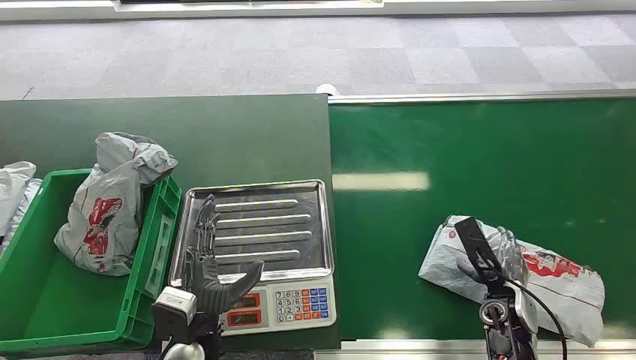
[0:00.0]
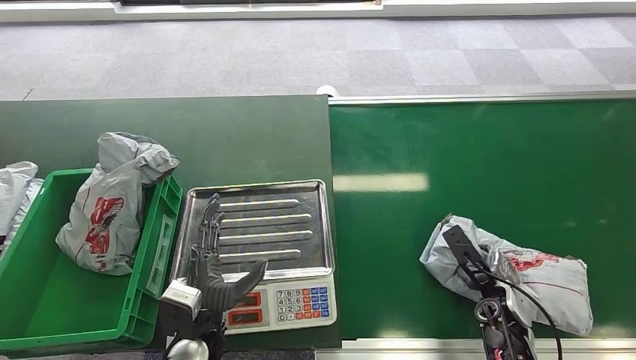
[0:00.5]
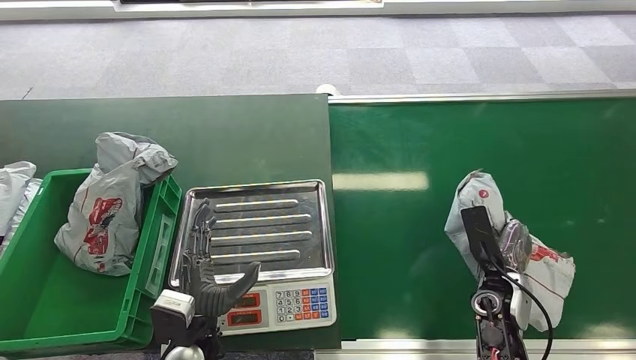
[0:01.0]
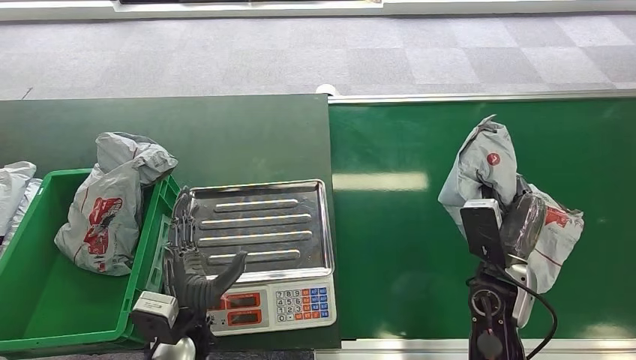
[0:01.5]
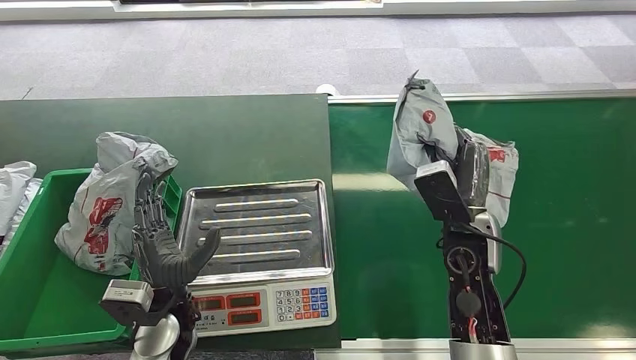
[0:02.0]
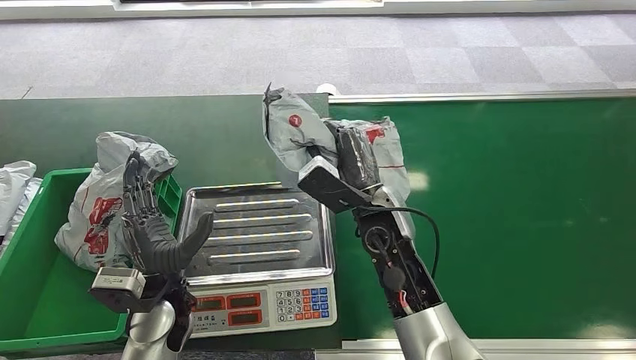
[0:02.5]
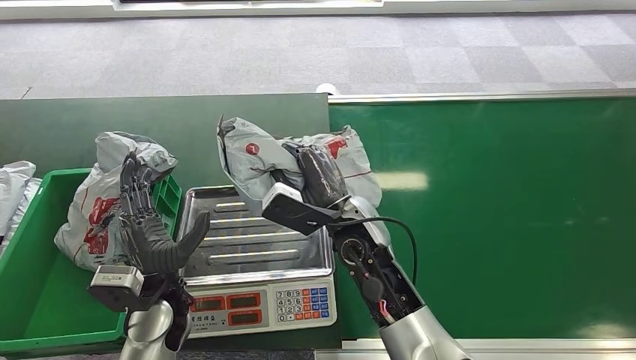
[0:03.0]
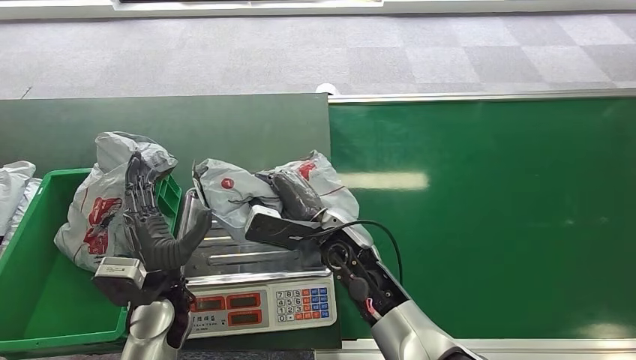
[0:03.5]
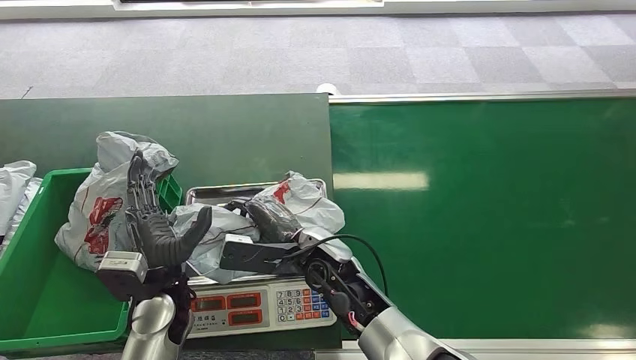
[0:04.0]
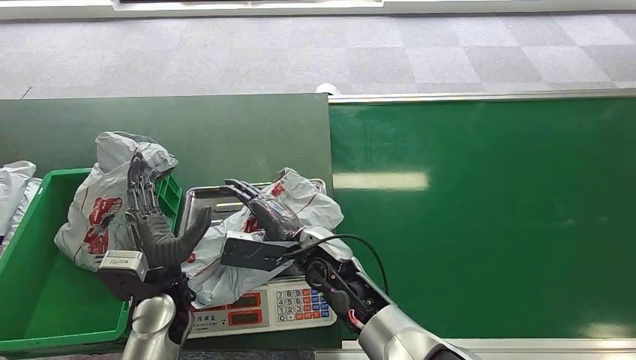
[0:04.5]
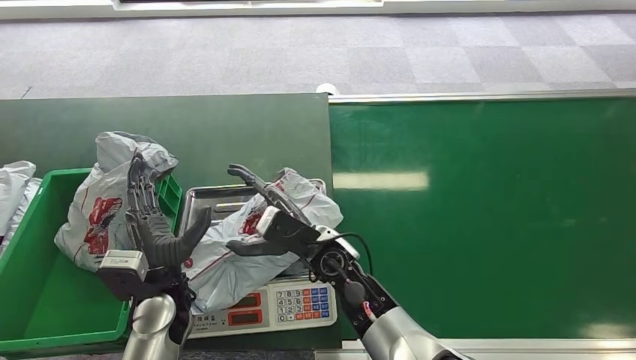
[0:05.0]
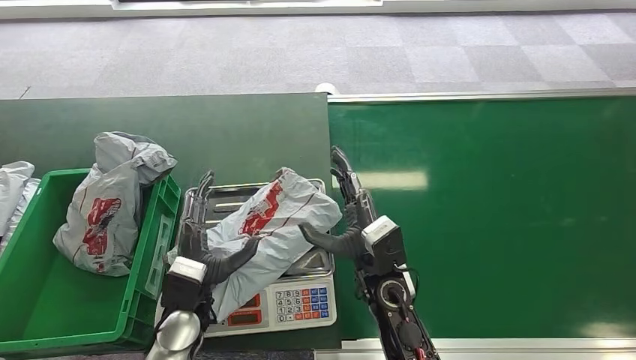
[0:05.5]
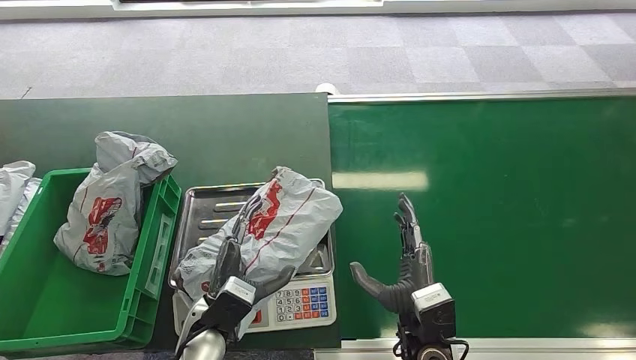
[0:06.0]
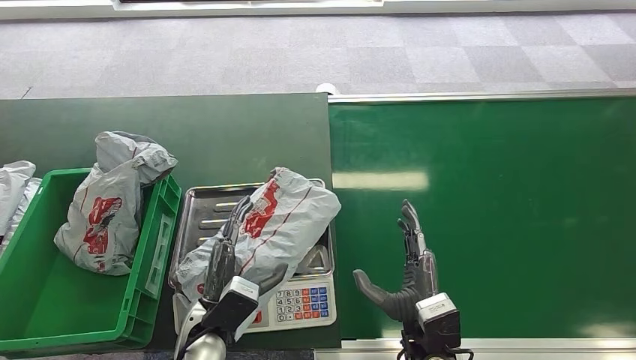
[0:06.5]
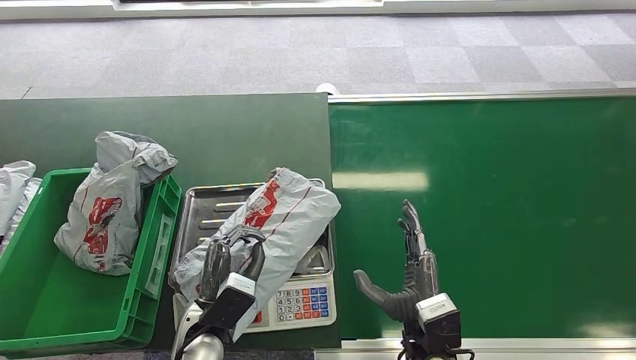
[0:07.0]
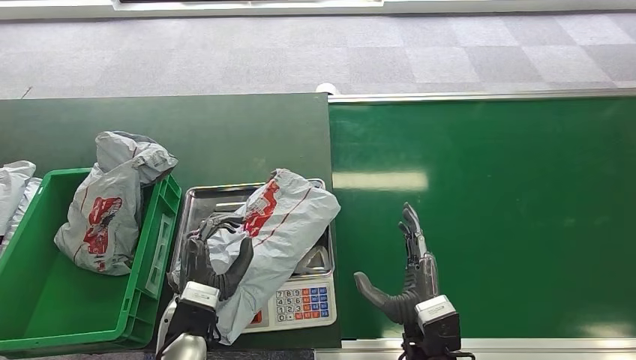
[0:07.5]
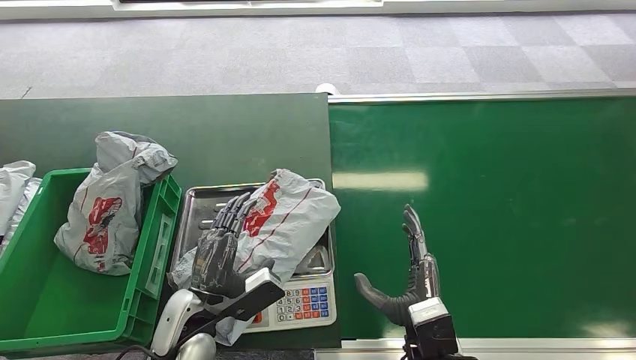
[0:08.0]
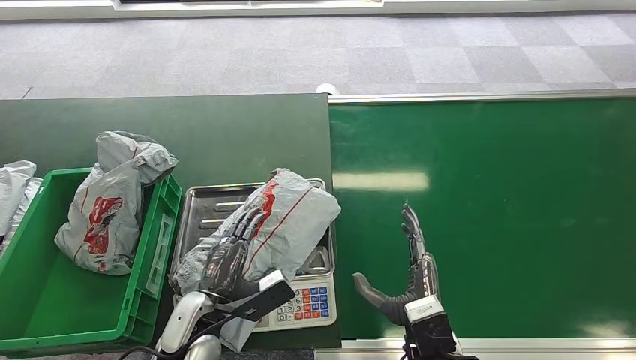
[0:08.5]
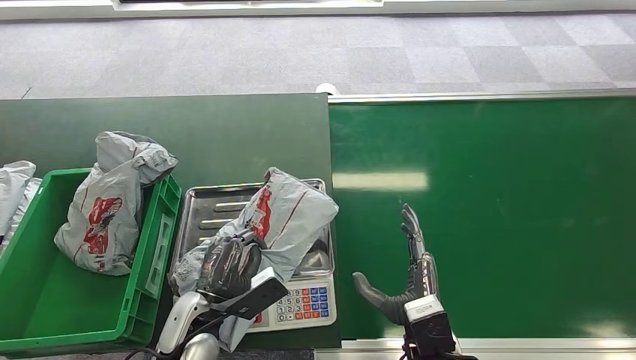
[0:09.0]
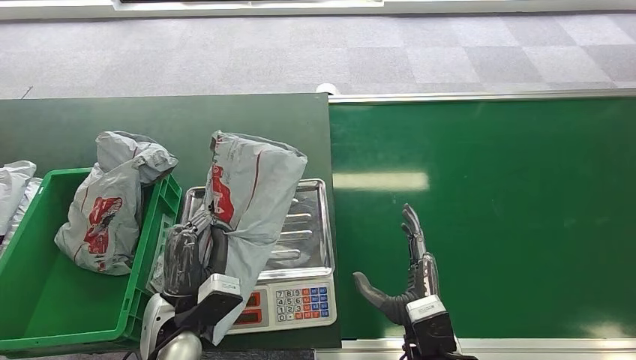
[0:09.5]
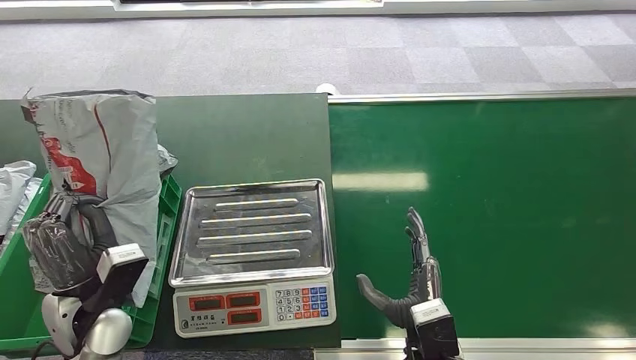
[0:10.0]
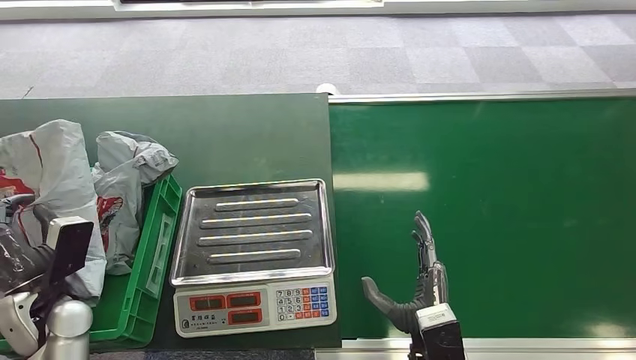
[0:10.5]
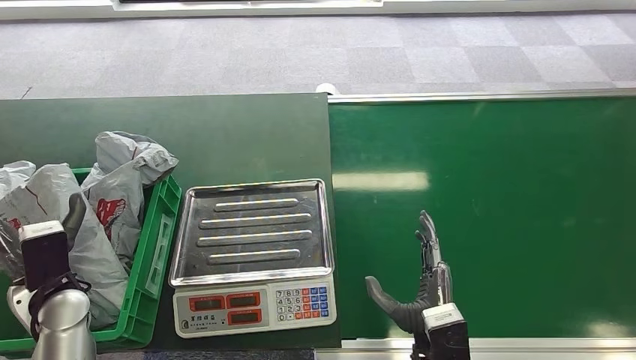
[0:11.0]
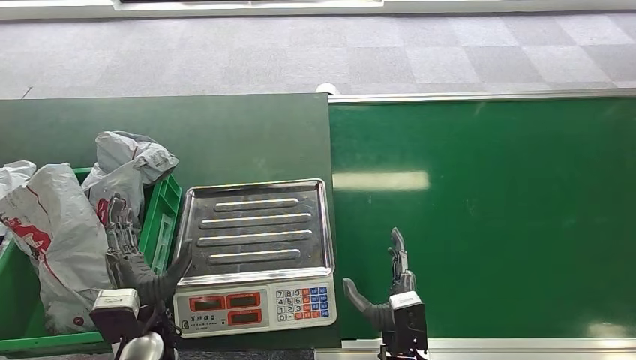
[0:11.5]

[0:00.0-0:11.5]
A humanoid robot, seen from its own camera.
Step, 0:00.0 to 0:01.0: Pick up the package from the conveyor belt.
Step, 0:02.0 to 0:05.0: Place the package onto the inbound machine.
Step, 0:09.0 to 0:10.0: Pick up the package from the inbound machine.
Step, 0:10.5 to 0:11.0: Place the package into the parcel locker.
0:04.0 to 0:06.0: The left hand is displaced to the right by some 5 cm. The right hand is displaced to the right and backward by roughly 15 cm.
0:06.0 to 0:07.5: There are only small adjustments of the hands.
0:09.5 to 0:11.5: The left hand reaches roughly 20 cm to the left, then returns. The right hand heads downward, covering roughly 5 cm.
